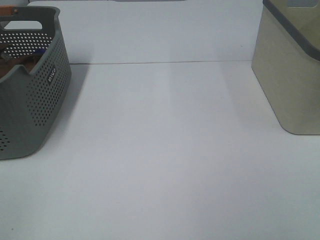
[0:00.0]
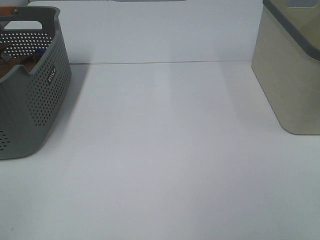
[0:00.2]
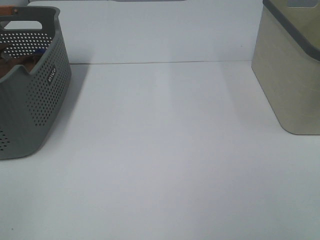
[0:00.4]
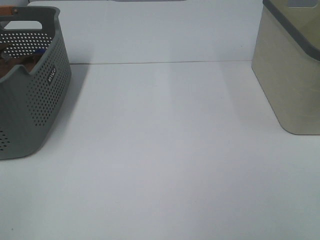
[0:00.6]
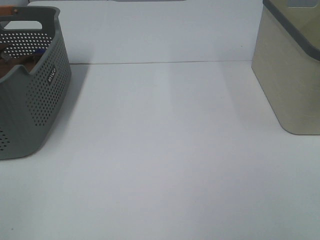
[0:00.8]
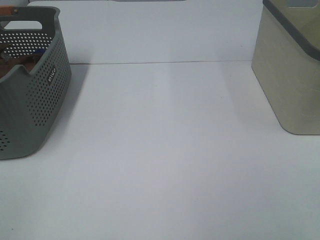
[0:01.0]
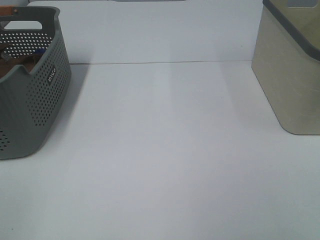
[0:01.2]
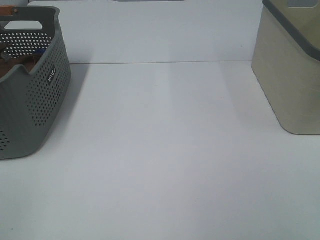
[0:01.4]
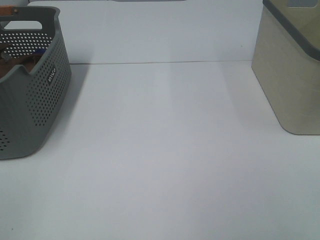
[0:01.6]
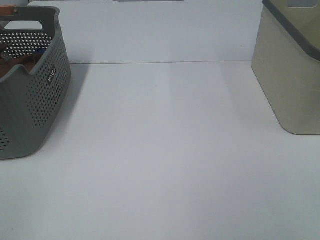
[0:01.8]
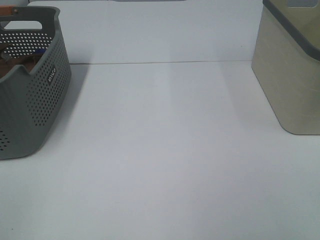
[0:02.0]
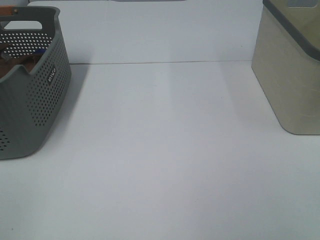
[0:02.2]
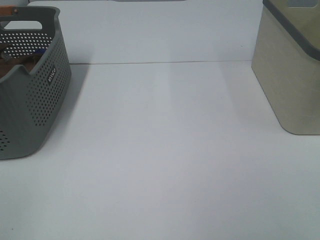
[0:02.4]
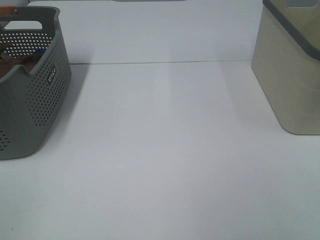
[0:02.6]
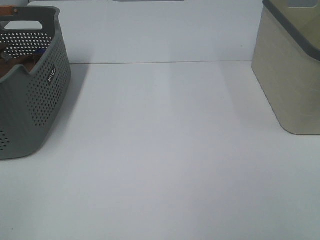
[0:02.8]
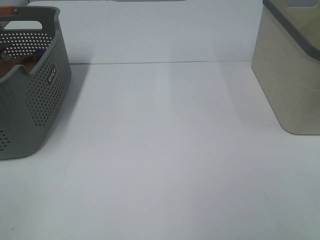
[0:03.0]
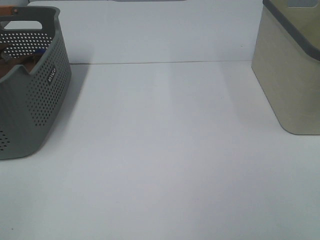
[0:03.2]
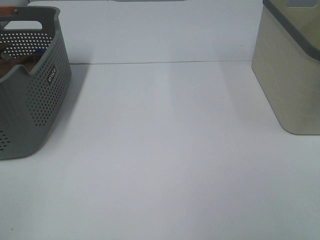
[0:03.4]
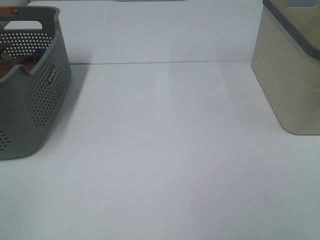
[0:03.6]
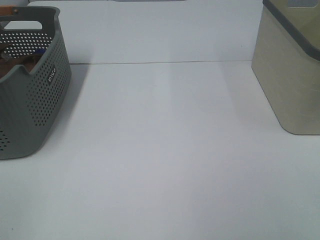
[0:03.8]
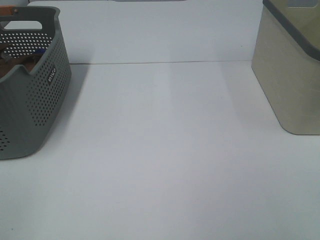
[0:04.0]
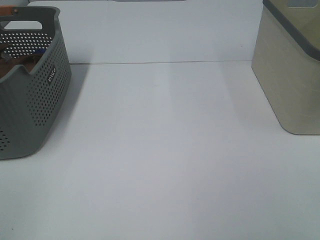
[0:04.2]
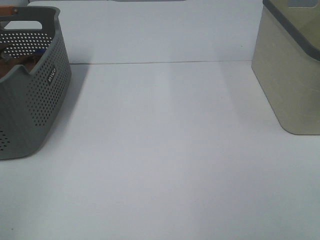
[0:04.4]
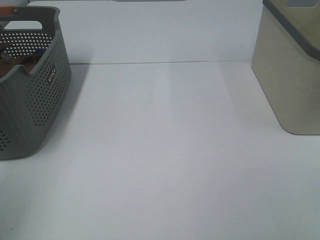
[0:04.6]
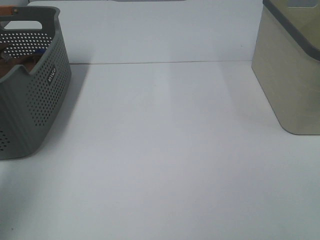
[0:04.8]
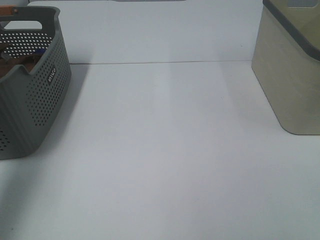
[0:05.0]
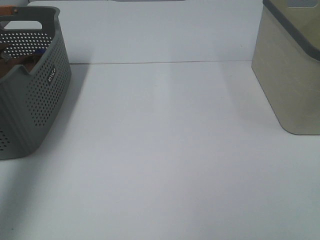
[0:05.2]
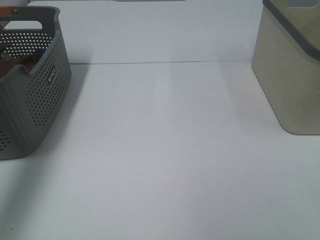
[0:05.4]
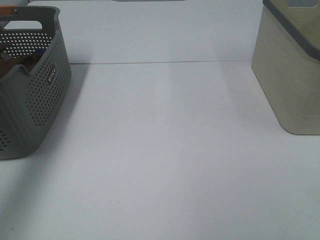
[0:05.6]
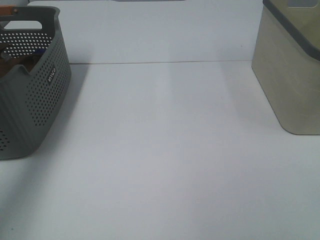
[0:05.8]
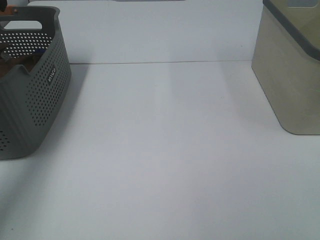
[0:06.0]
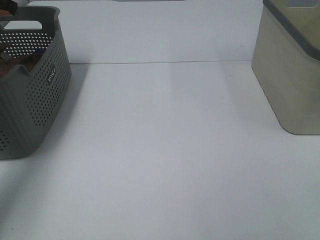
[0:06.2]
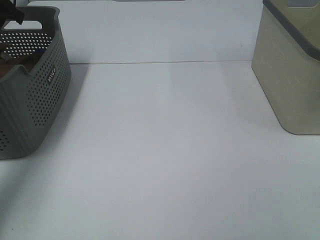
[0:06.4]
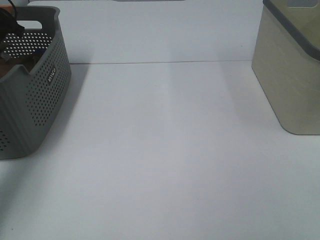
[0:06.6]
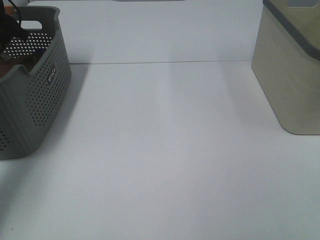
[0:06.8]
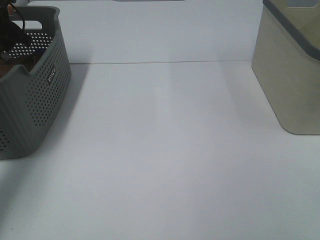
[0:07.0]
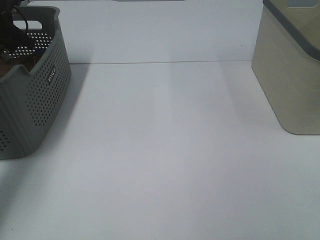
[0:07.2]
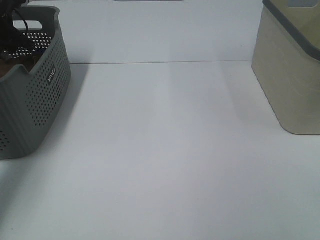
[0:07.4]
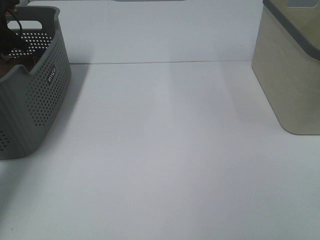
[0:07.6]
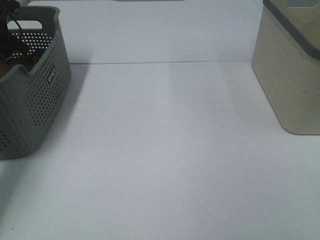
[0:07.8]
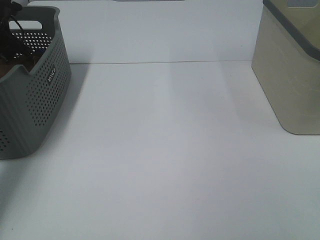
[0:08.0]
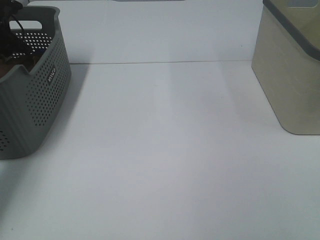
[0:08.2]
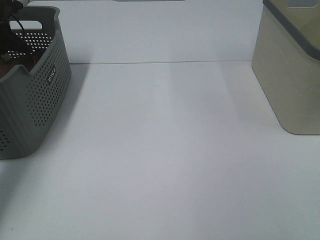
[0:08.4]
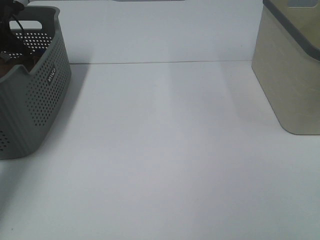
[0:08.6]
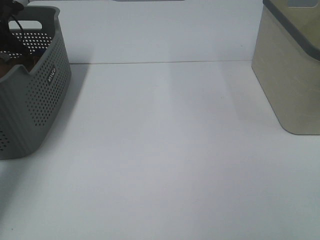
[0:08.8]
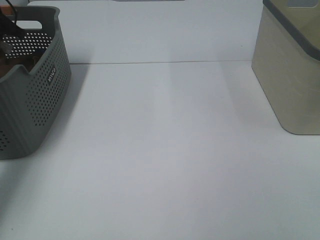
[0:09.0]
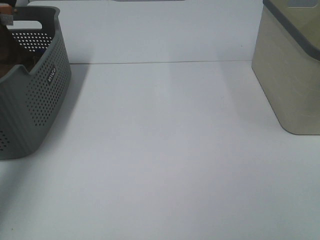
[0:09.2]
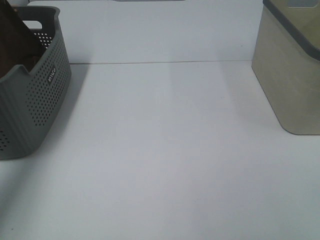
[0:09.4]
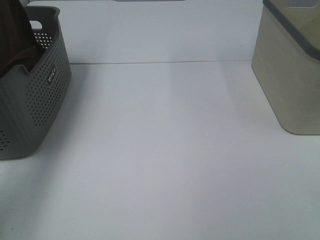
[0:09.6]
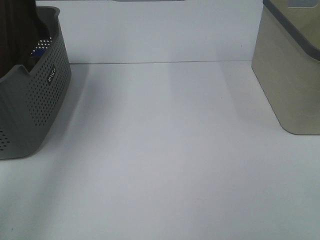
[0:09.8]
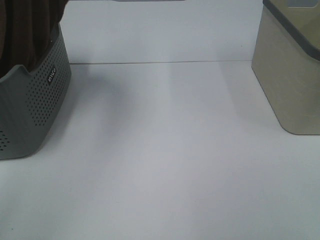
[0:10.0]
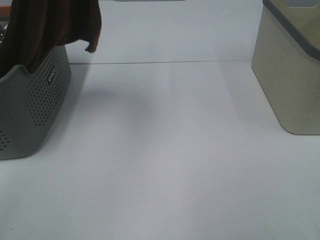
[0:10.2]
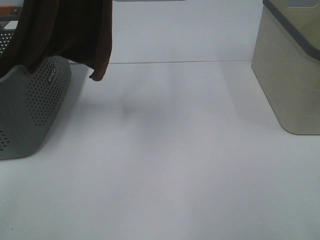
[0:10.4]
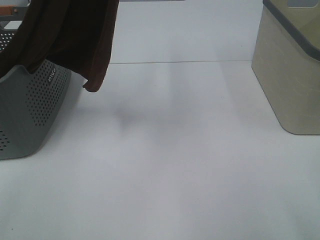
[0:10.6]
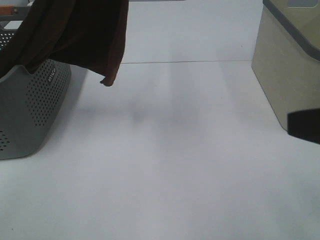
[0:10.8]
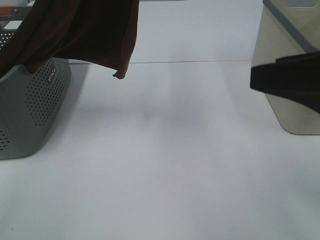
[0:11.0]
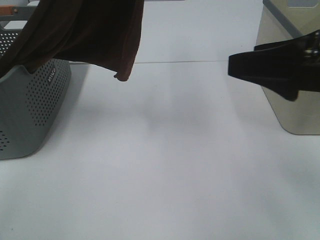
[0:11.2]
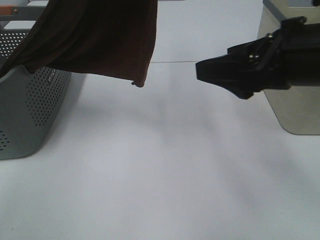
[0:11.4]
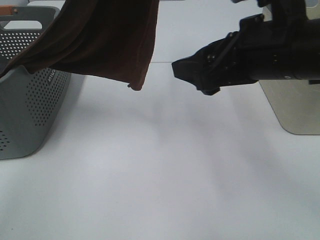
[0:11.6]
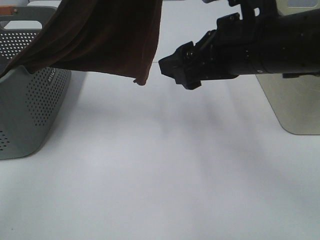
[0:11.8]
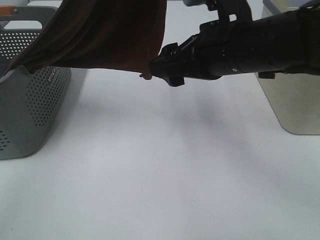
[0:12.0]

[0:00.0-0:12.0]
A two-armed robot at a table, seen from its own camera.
Task of the whole recording: Remove the towel and place it.
0:00.0 to 0:03.0: Both grippers stay put.
0:04.4 to 0:06.0: The left gripper is displaced forward by about 40 cm.
0:06.0 to 0:07.6: The left gripper heads downward and forward, covering roughly 15 cm.
0:07.6 to 0:09.0: The left gripper closes up.
0:09.0 to 0:10.4: The left gripper heads upward, to the right and backward, covering some 40 cm.
0:10.4 to 0:12.0: The left gripper travels to the right by about 5 cm, while the right gripper goes some 30 cm forward and to the left.

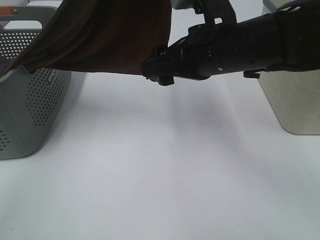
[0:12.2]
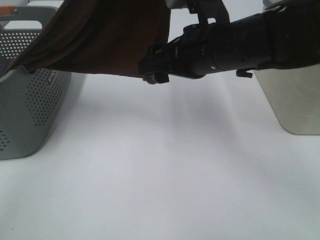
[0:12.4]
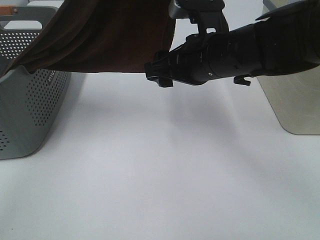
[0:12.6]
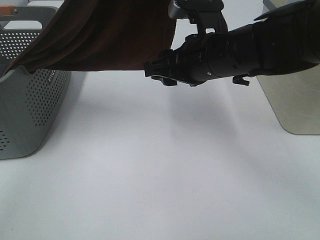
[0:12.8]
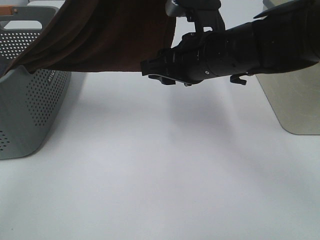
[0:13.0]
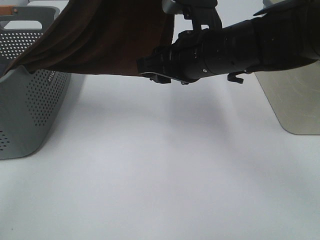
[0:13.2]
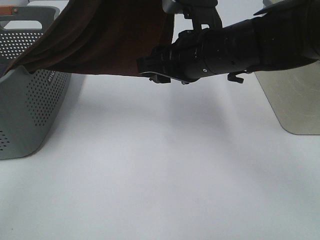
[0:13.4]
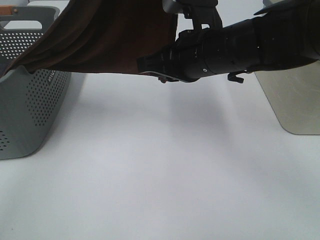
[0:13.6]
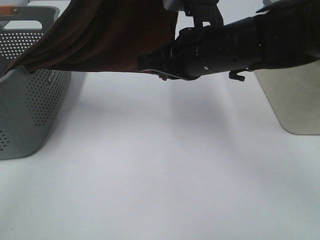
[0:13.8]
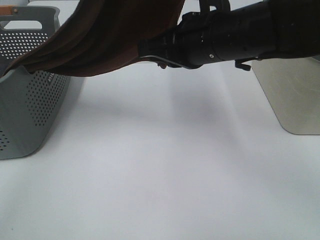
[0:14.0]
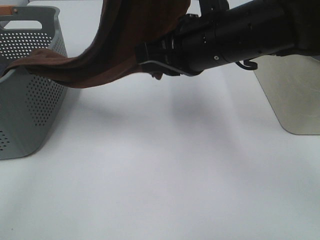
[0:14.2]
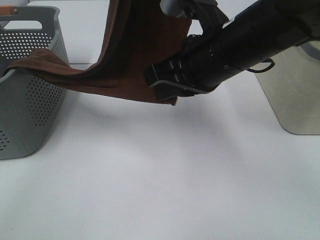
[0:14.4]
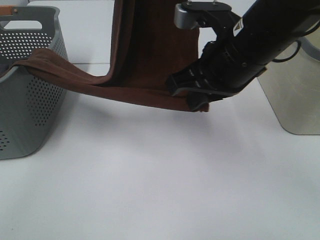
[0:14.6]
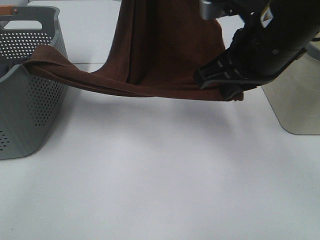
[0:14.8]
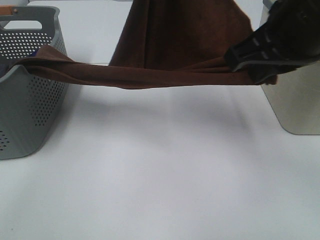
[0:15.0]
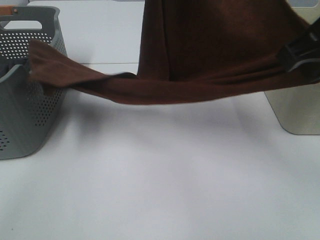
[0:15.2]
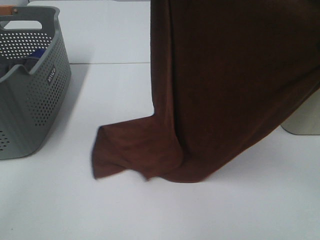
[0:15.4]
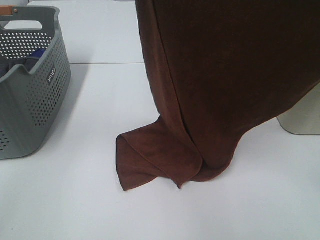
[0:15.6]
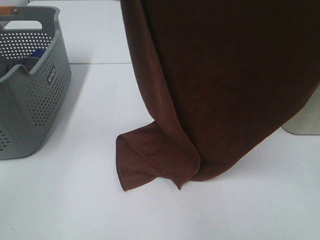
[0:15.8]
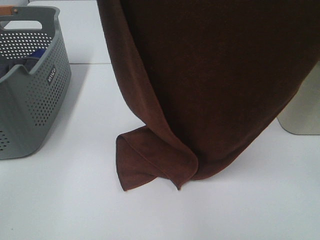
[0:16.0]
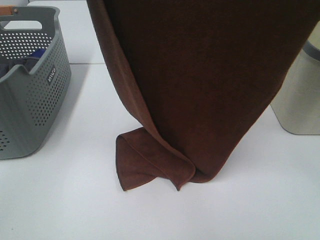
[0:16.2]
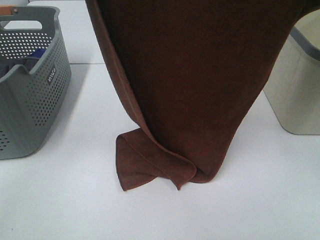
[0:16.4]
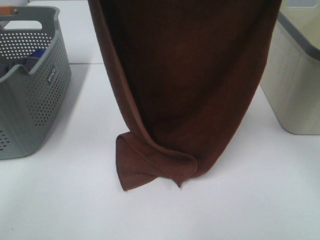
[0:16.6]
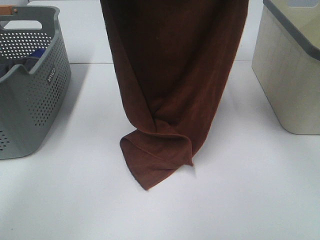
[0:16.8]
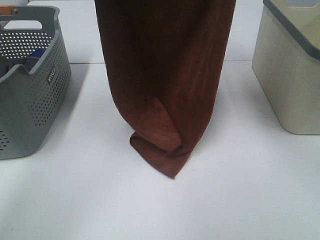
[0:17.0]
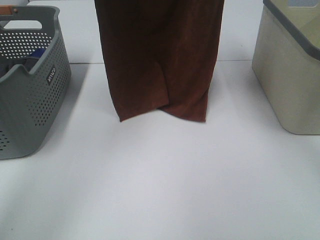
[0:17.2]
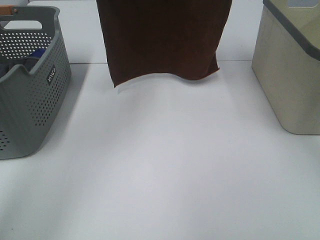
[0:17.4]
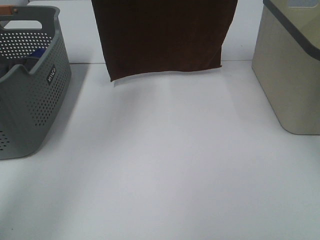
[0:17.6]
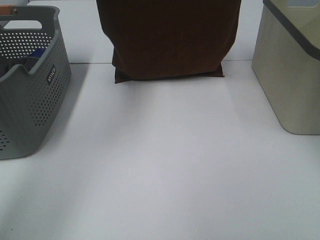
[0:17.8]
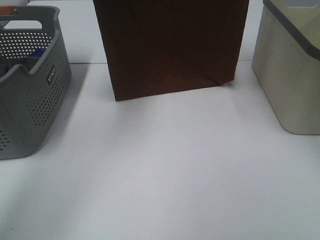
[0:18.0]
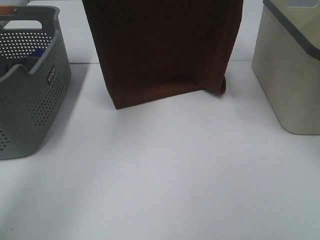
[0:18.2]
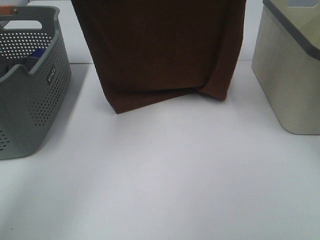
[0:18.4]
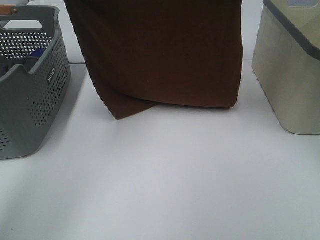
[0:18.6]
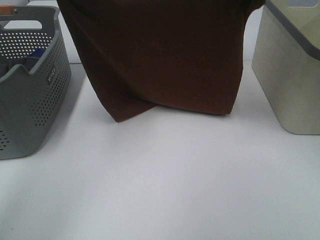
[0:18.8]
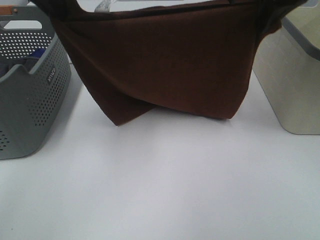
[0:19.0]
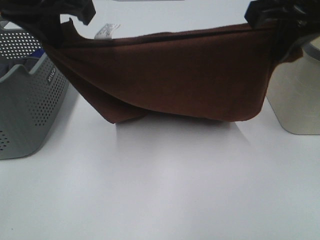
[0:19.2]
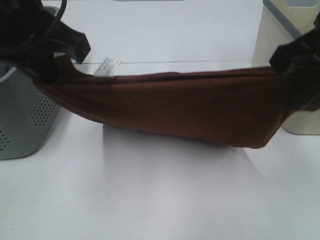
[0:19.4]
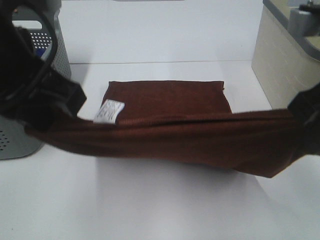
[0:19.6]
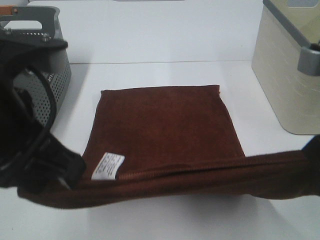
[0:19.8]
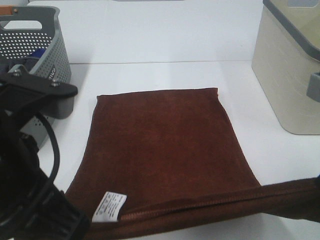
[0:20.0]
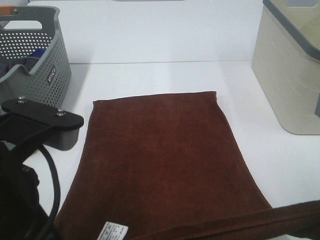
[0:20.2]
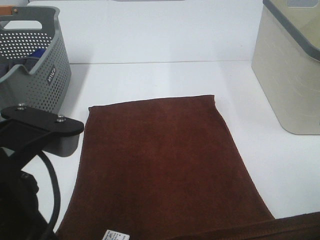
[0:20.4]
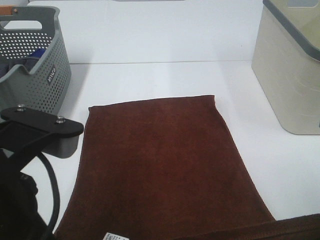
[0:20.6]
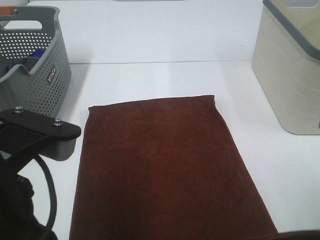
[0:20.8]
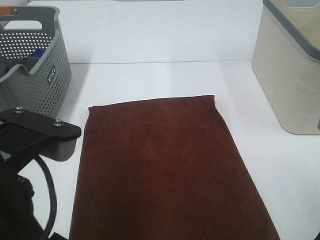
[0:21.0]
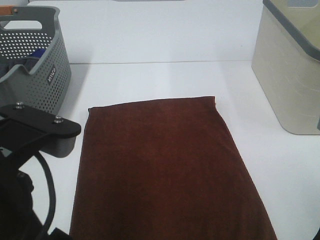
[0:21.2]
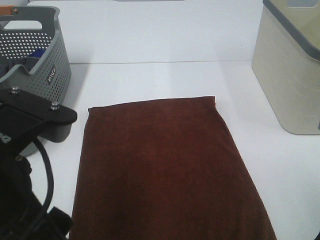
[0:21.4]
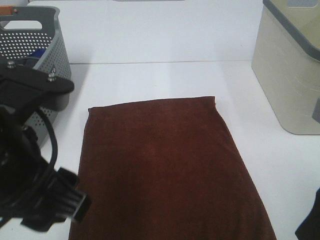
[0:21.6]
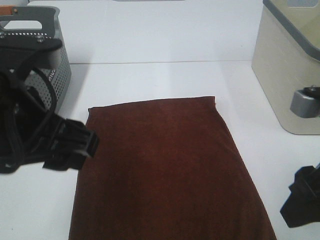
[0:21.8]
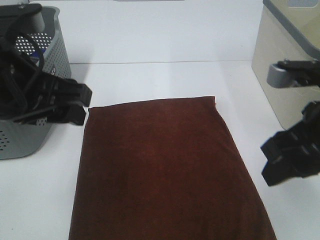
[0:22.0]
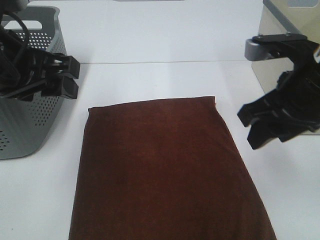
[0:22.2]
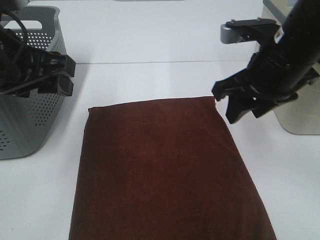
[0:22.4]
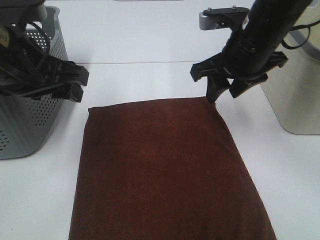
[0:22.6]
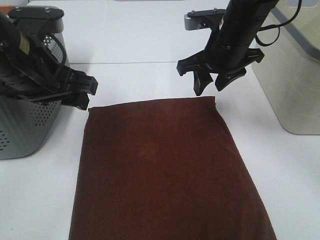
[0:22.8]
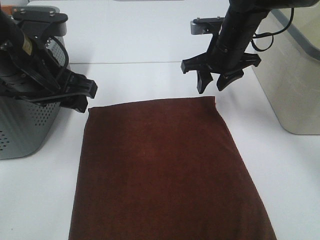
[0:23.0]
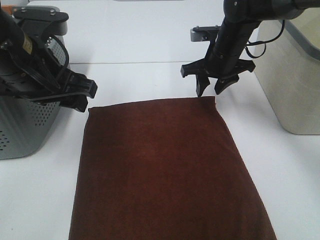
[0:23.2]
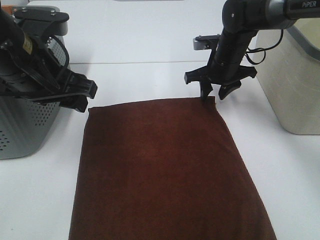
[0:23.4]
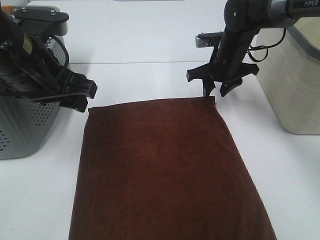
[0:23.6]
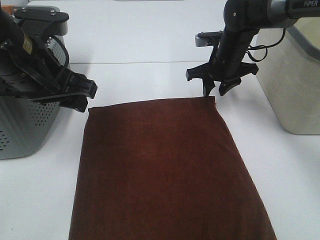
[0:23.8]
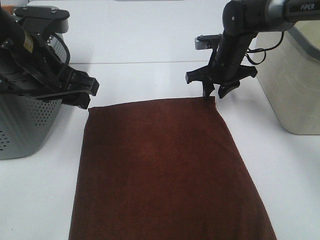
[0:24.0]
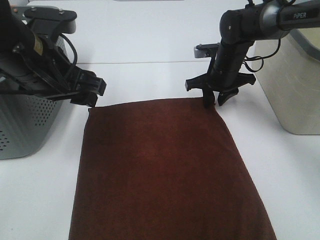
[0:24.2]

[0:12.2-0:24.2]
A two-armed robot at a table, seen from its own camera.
Task of the whole recording: Remove the towel and place it.
Step, 0:13.4 to 0:16.8: Left hand: spread the brown towel flat on the table.
Step, 0:13.4 to 0:16.8: Right hand: spread the brown towel flat on the table.
0:12.2 to 0:13.8: The right gripper closes.
0:13.8 to 0:15.2: The right gripper is displaced upward, to the right and backward by approximately 20 cm.
0:15.2 to 0:16.6: The left gripper is displaced to the left by about 5 cm, and goes backward and returns, roughly 5 cm each way. Meanwhile the right gripper heads upward and forward, covering some 10 cm.
0:16.6 to 0:18.2: The right gripper moves forward, some 10 cm. The left gripper shifts some 10 cm forward and to the left.
0:18.2 to 0:19.8: The right gripper moves backward and downward, some 25 cm, while the left gripper moves backward, some 30 cm.
0:19.8 to 0:21.2: The left gripper heads backward, covering approximately 5 cm, and opens up; the right gripper changes place by about 5 cm, and opens up.
0:21.2 to 0:22.6: The right gripper travels forward and to the left by about 25 cm. The left gripper is displaced forward by about 15 cm.
0:22.6 to 0:24.2: The right gripper shifts approximately 20 cm forward and downward.
